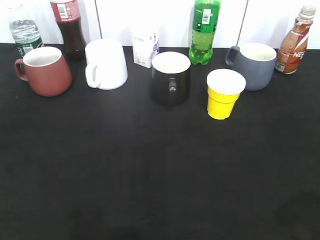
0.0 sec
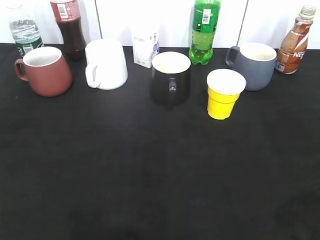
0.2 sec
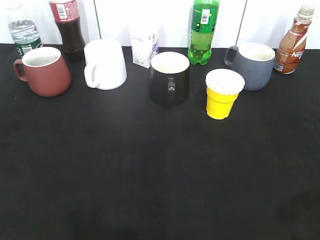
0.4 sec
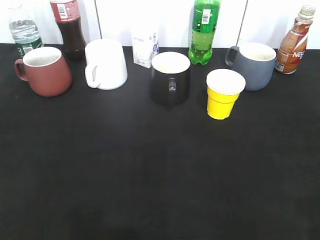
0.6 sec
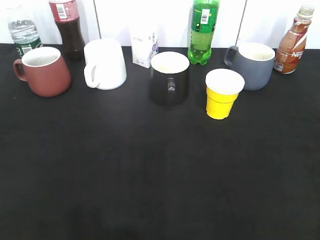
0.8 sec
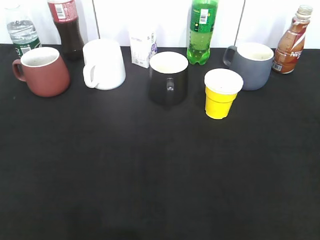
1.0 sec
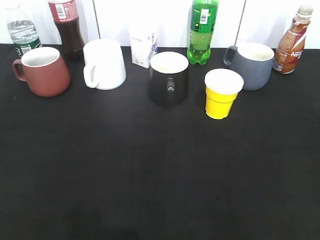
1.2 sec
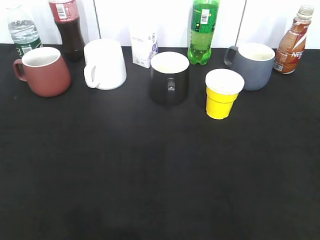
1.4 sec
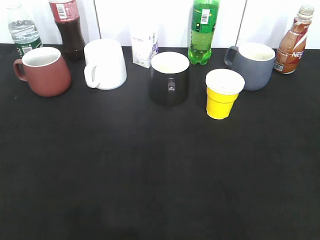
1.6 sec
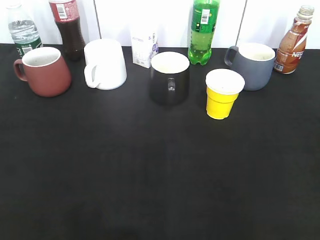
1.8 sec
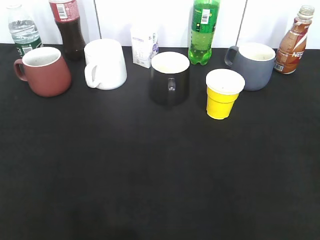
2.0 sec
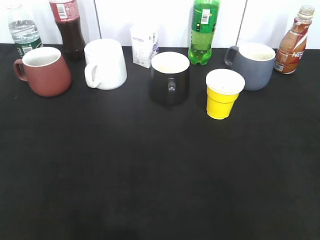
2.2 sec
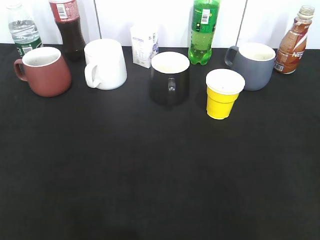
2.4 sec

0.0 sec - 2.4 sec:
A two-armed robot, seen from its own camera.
0.0 sec - 1.2 sec: The left gripper closes, while the right gripper changes place by roughly 5 cm.
1.2 sec - 2.4 sec: Neither gripper changes place.
